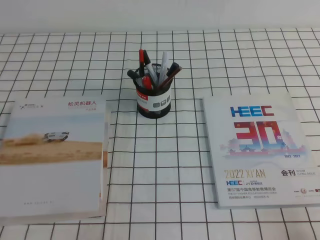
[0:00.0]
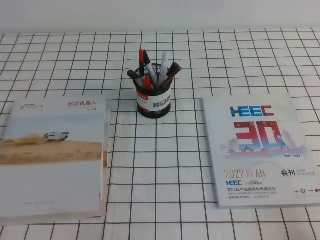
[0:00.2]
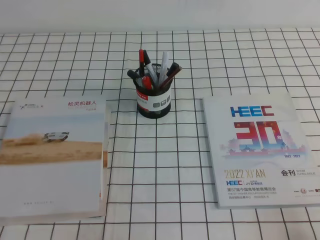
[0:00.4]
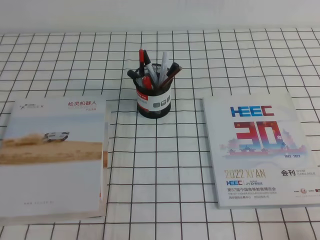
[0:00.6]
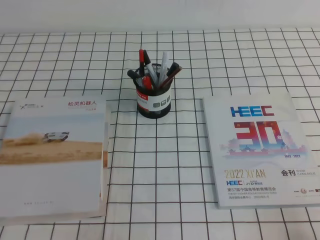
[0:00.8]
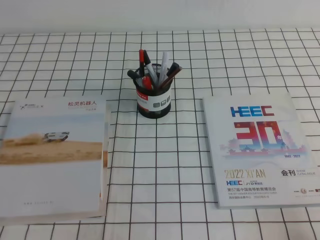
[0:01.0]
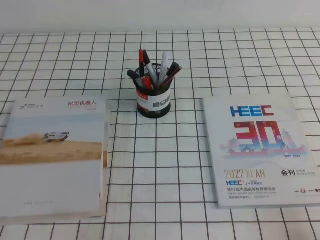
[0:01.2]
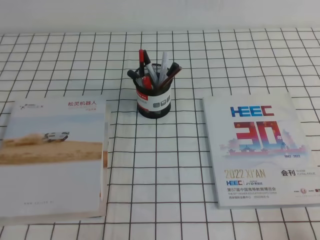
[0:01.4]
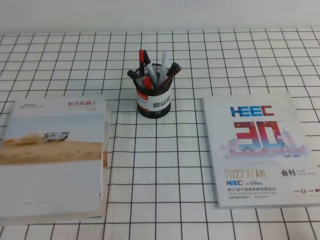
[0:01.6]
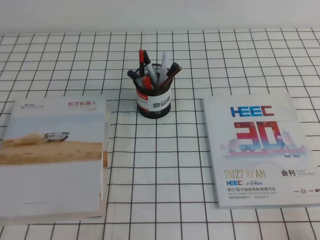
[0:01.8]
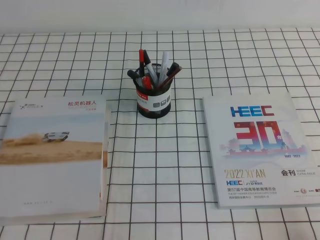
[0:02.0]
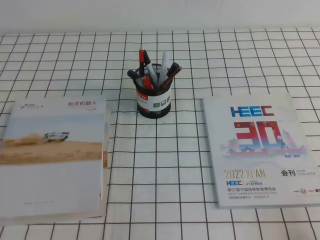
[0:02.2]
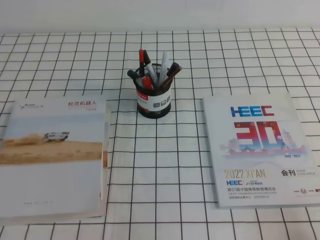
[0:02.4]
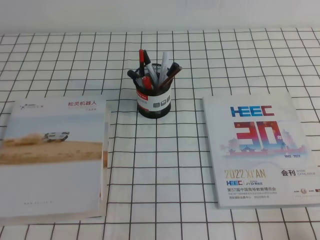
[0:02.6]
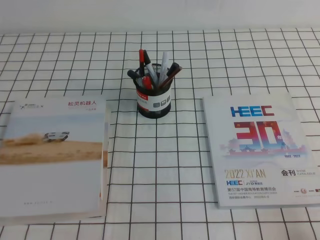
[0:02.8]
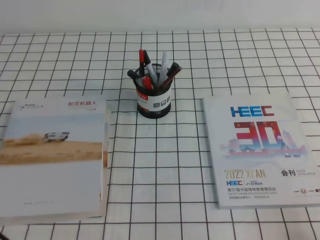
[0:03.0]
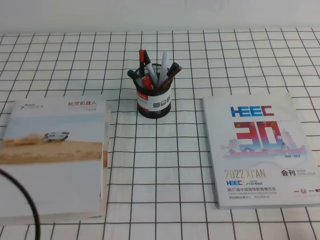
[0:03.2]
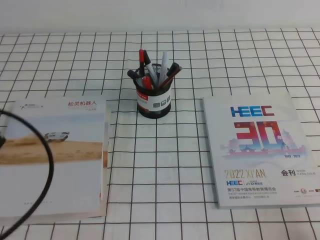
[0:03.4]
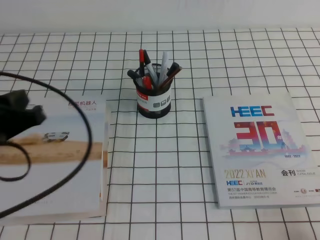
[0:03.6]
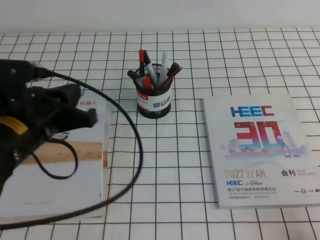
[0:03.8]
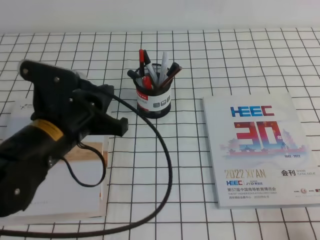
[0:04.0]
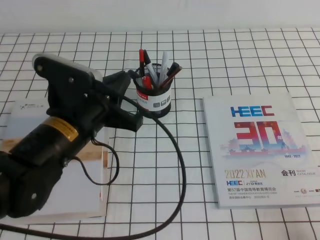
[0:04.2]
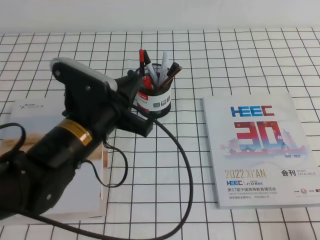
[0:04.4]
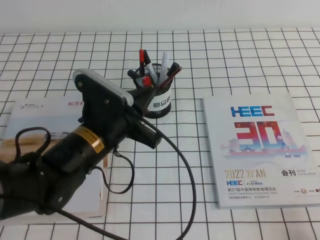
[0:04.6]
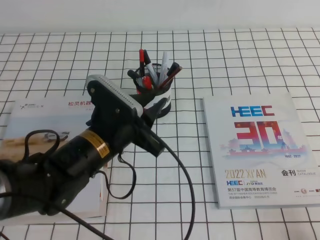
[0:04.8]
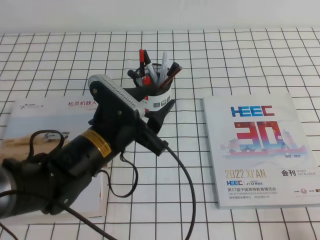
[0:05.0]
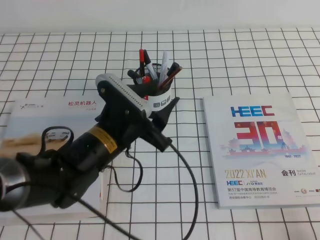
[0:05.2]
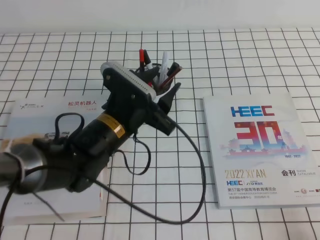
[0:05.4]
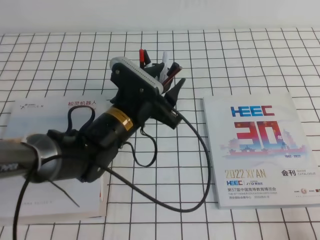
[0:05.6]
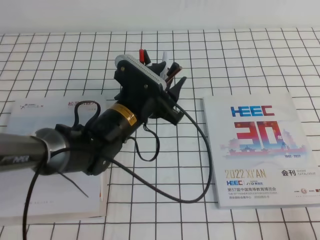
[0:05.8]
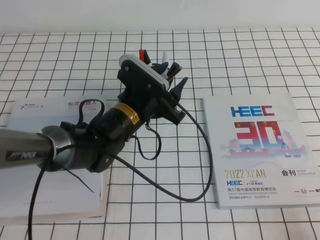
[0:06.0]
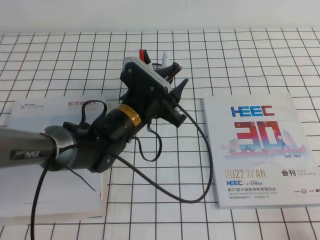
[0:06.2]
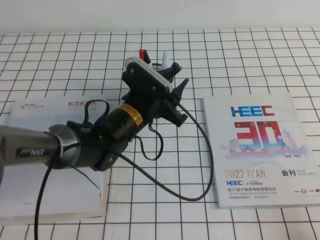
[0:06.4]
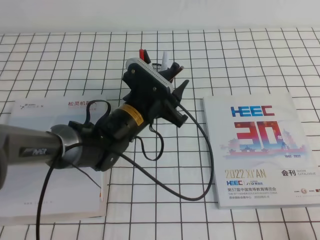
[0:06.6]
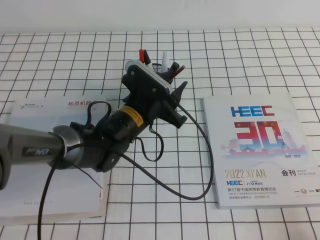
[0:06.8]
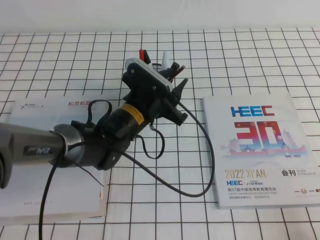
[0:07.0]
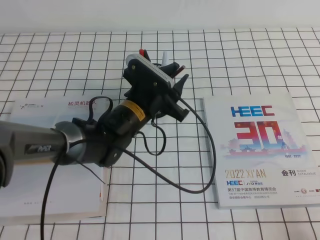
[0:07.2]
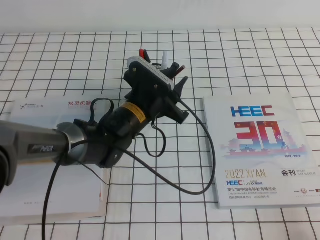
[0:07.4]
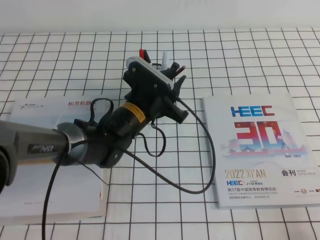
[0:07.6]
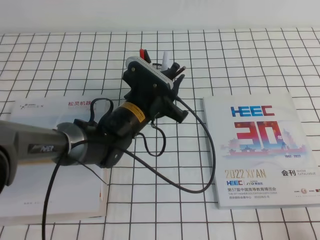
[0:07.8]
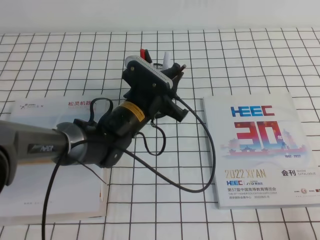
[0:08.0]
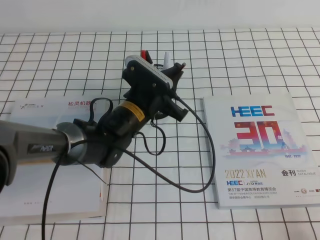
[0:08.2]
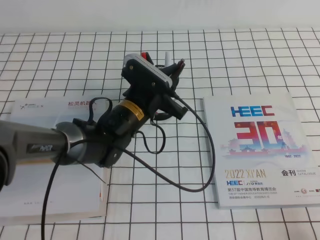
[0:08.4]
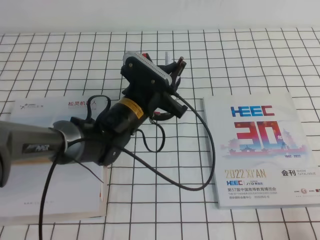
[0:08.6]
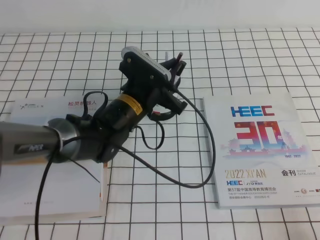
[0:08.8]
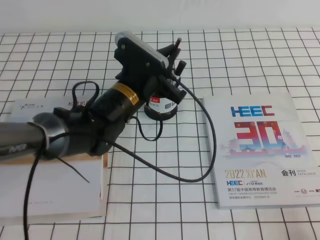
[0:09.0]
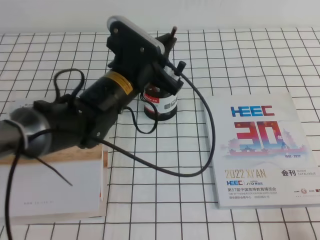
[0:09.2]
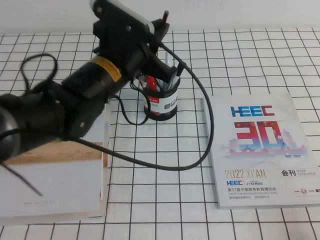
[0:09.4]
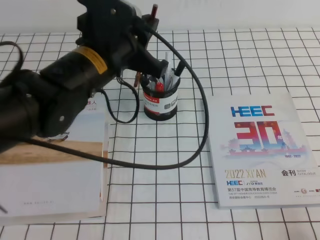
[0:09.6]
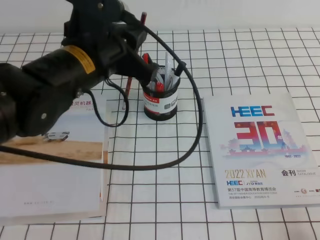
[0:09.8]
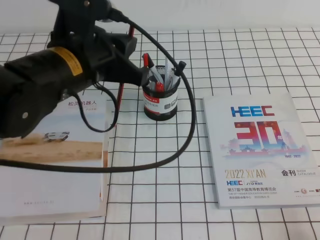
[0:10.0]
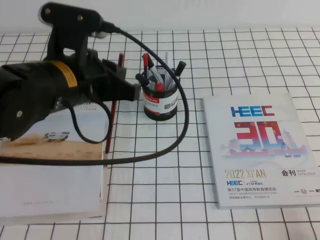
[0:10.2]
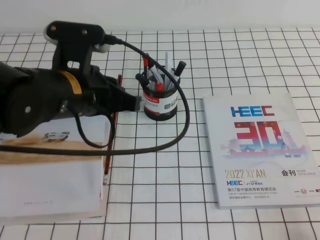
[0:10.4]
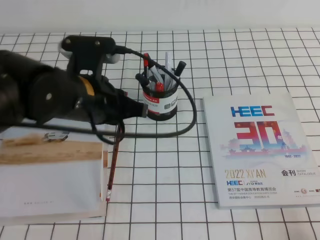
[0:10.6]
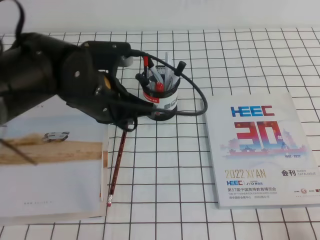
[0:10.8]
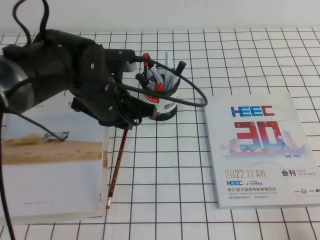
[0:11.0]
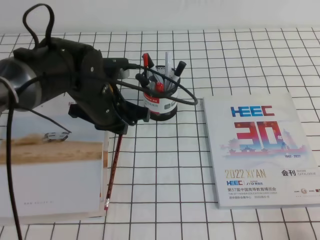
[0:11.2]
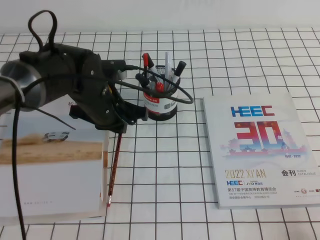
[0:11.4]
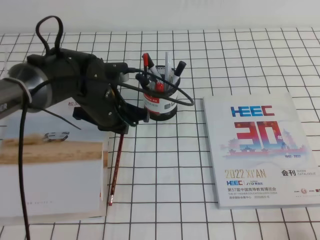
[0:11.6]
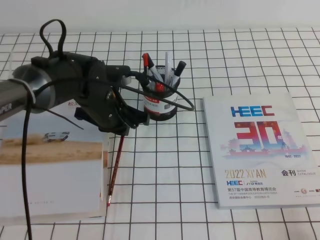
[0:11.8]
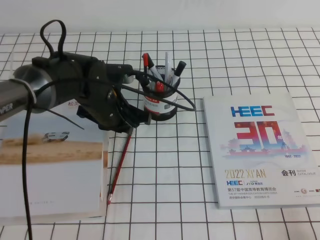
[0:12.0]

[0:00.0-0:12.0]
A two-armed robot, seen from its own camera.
0:00.0 to 0:01.6: The two grippers keep their place.
0:03.0 to 0:04.4: The left gripper goes some 25 cm forward and to the right.
0:04.4 to 0:06.0: The left gripper goes some 10 cm forward, to the right and downward, and opens.
0:06.0 to 0:07.6: The left gripper closes.
0:07.6 to 0:09.0: The left gripper closes up.
0:09.0 to 0:10.4: The left gripper is displaced upward, backward and to the left by roughly 15 cm.
0:10.4 to 0:12.0: The left gripper is displaced downward and forward by approximately 15 cm.

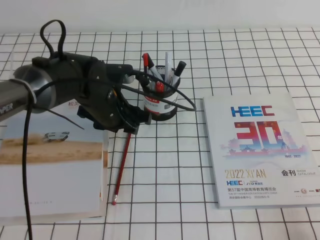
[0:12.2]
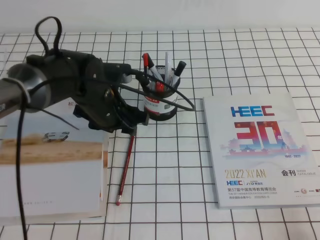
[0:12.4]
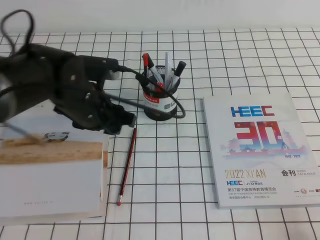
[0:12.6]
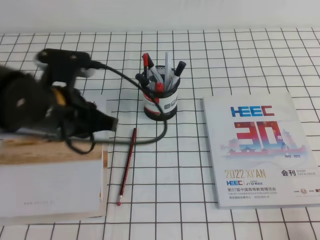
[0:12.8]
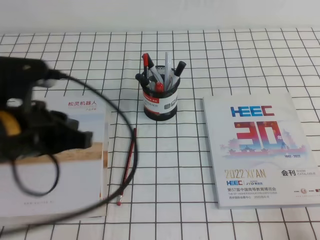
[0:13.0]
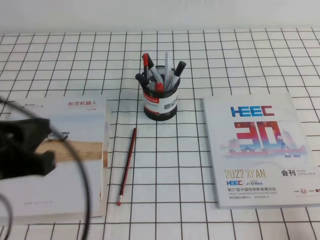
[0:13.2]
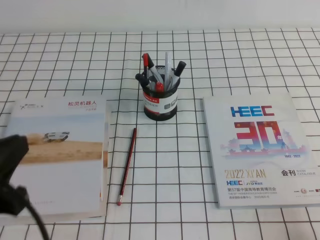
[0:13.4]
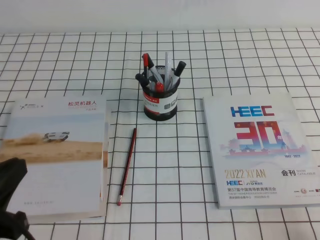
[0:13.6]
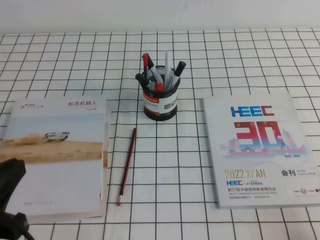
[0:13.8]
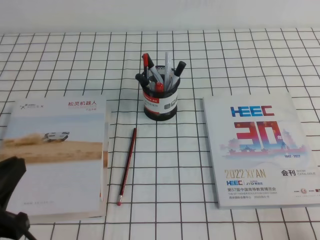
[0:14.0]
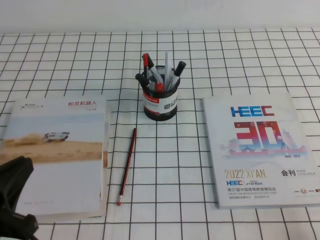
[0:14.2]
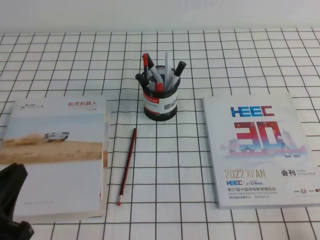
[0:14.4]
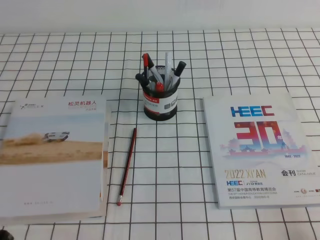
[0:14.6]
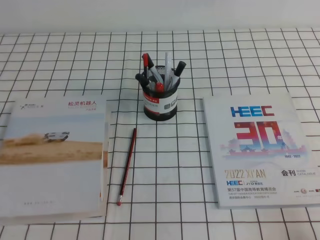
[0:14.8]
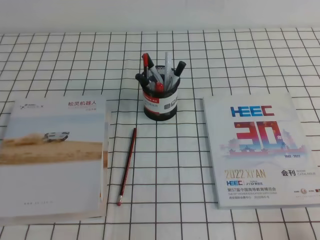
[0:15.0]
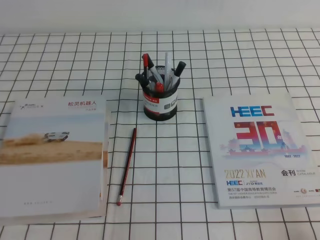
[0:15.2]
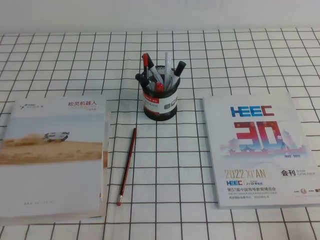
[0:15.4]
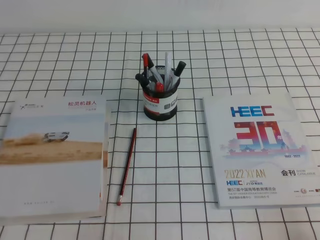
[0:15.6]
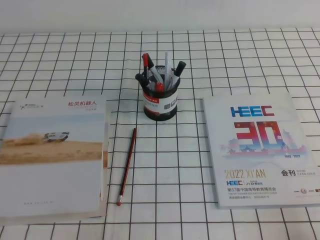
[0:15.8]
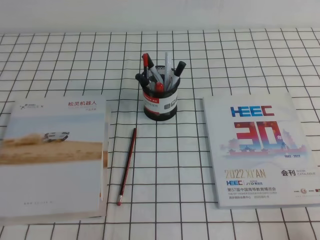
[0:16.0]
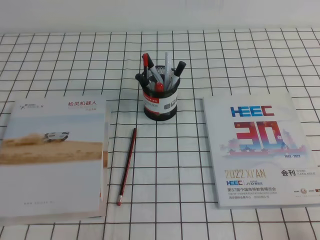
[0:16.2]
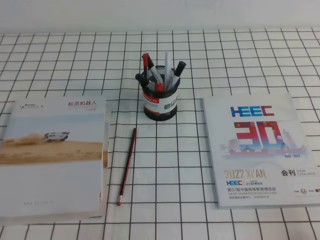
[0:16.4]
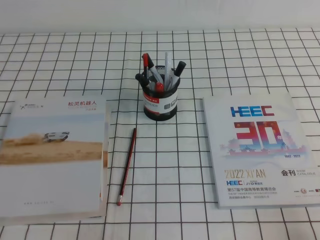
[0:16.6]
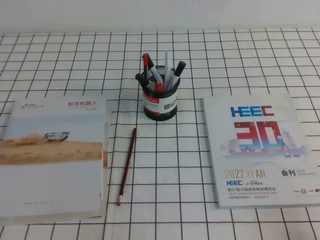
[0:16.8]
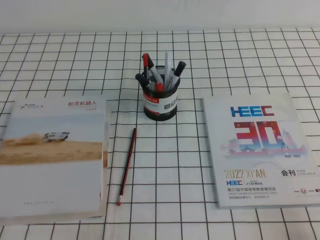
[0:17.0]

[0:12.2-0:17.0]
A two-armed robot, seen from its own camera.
Step, 0:12.2 to 0:17.0: Pick up the pen from the pen holder.
0:12.2 to 0:13.8: The left gripper travels backward and to the left by approximately 30 cm, and closes up.
0:13.8 to 0:15.4: The left gripper is displaced downward by roughly 10 cm.

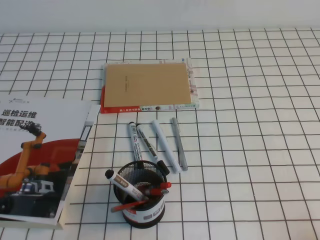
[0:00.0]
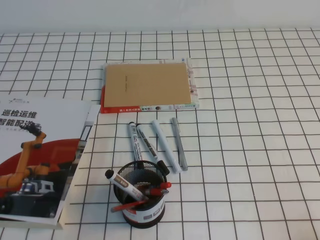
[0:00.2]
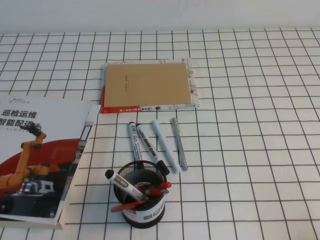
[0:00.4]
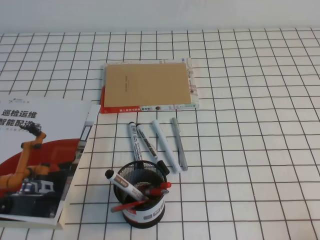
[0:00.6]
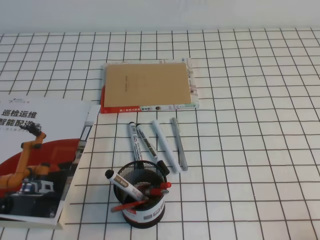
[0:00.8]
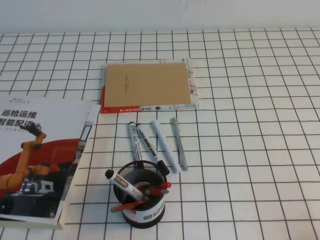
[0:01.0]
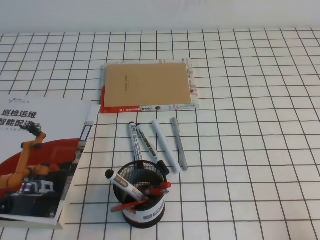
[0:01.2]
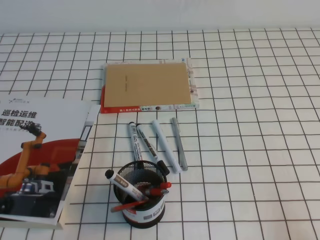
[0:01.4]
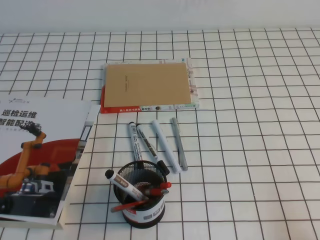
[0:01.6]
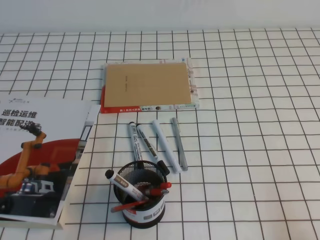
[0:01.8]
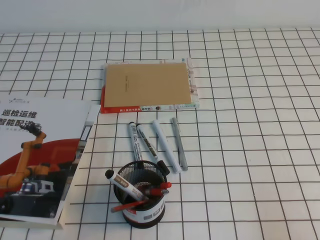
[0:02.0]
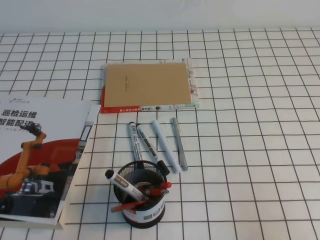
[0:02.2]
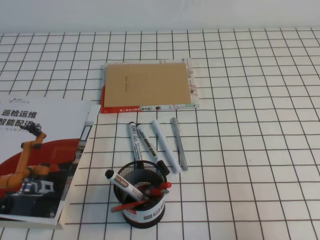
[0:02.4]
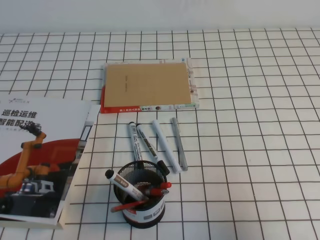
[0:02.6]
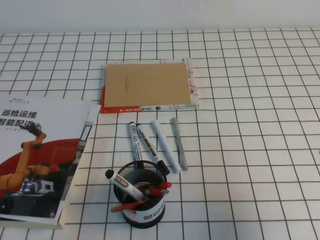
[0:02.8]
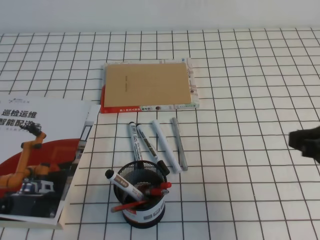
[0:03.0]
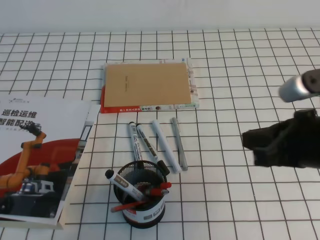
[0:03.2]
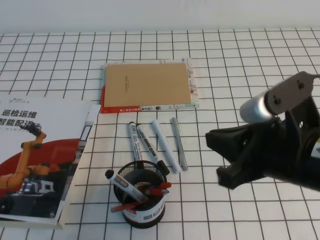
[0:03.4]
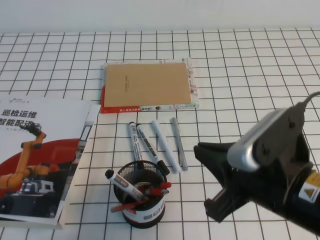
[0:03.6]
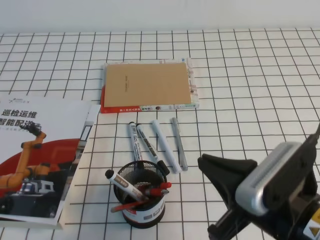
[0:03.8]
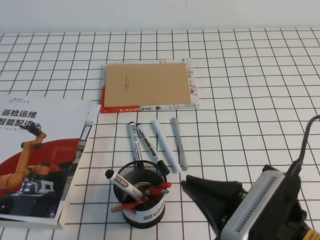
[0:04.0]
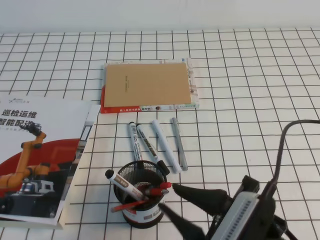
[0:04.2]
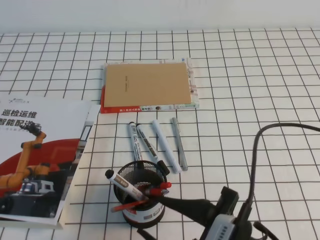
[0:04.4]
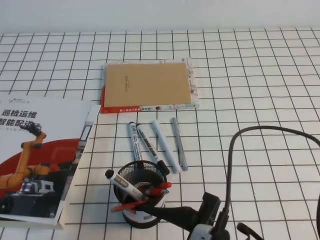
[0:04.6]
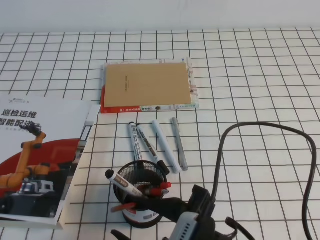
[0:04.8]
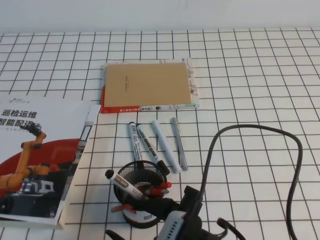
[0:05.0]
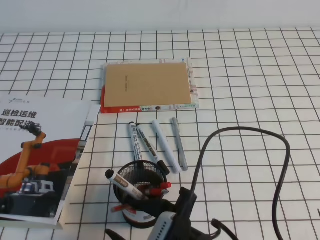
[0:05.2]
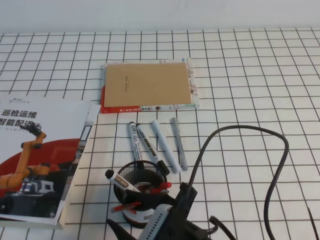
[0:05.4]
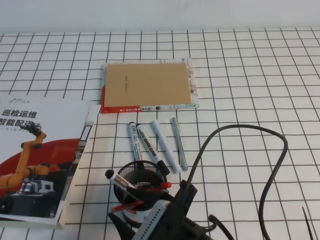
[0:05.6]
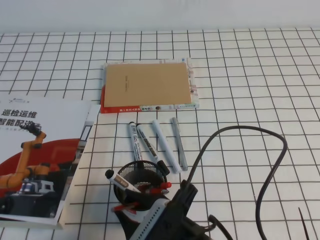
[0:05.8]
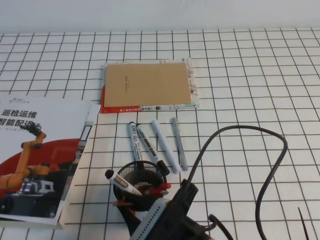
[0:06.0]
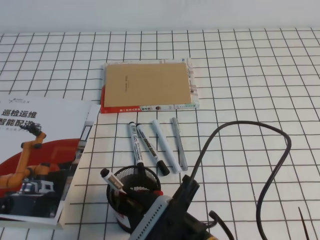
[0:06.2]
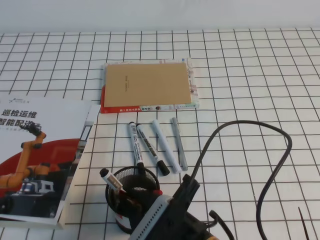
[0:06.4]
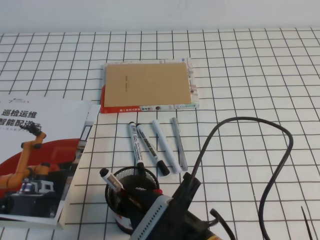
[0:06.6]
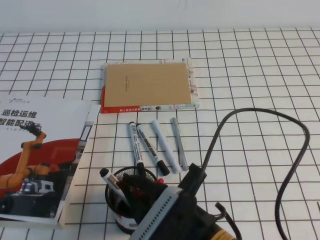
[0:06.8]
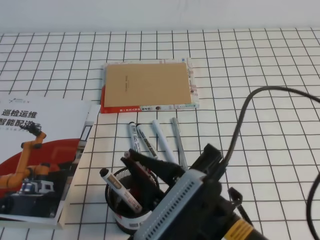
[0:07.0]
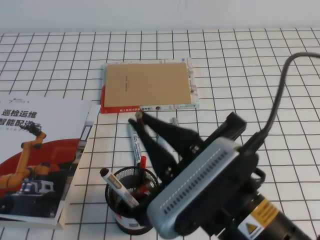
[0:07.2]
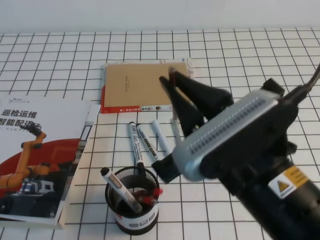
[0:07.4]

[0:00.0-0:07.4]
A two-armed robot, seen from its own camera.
0:01.4 to 0:03.0: The right gripper travels forward, upward and to the left by approximately 15 cm.
0:03.0 to 0:04.4: The right gripper heads to the left, backward and downward, covering about 20 cm, and opens.
0:04.4 to 0:06.0: The right gripper travels to the left by about 5 cm, and closes.
0:06.0 to 0:07.4: The right gripper shifts approximately 15 cm upward.
